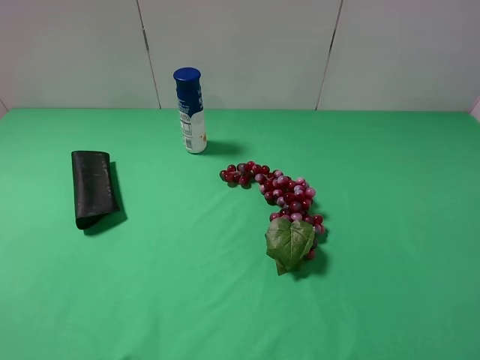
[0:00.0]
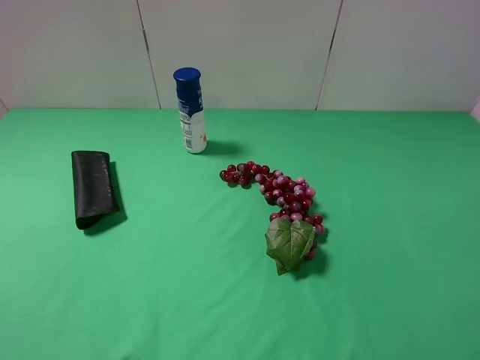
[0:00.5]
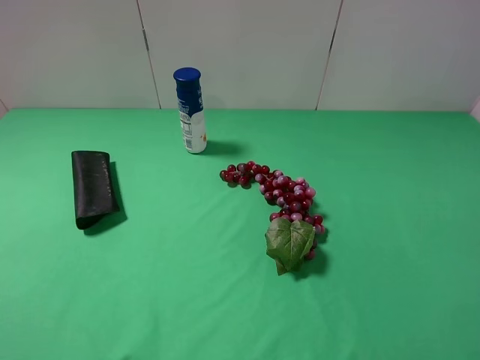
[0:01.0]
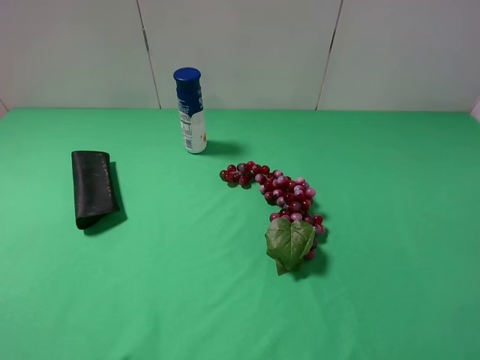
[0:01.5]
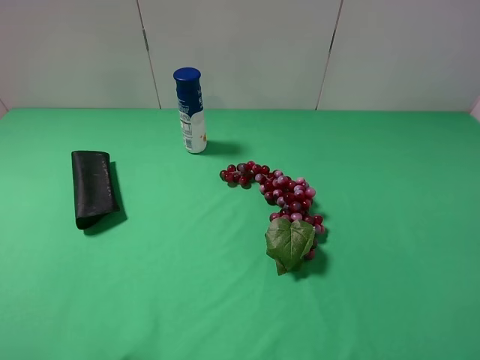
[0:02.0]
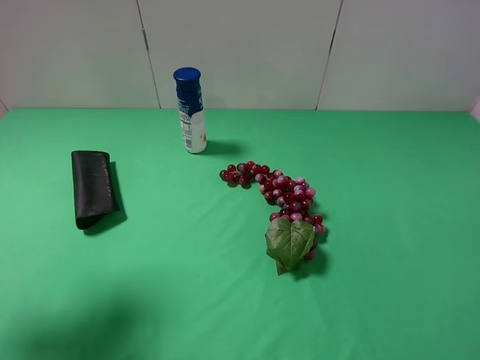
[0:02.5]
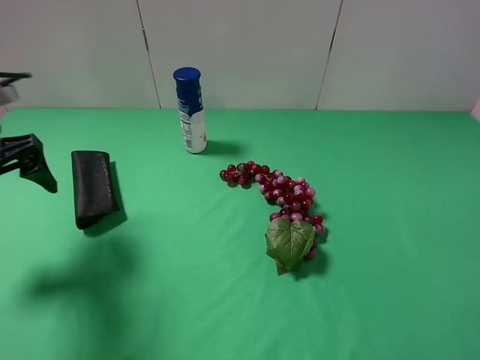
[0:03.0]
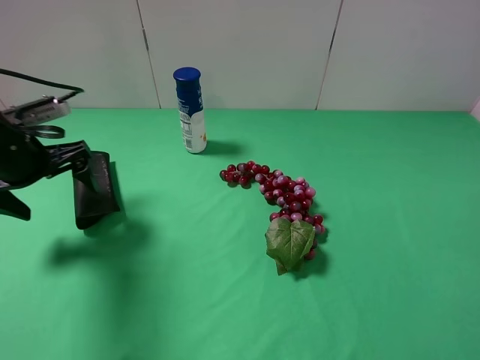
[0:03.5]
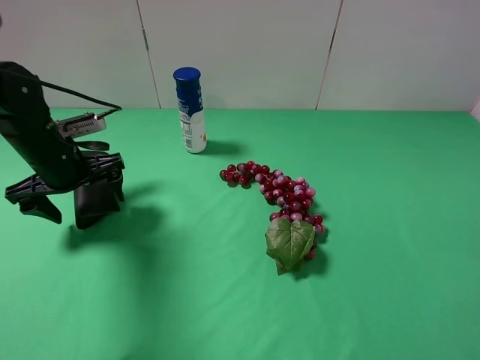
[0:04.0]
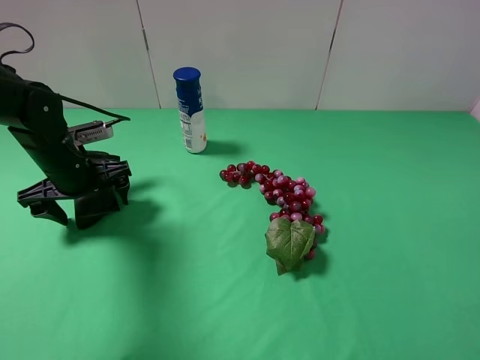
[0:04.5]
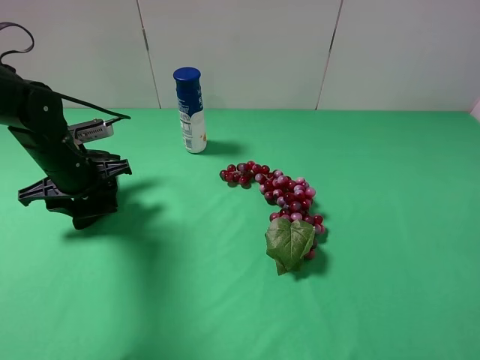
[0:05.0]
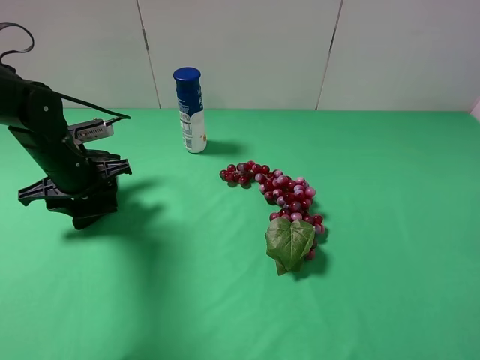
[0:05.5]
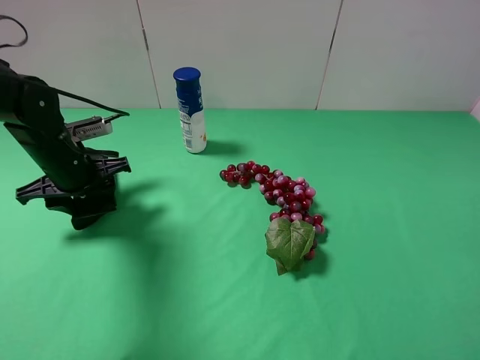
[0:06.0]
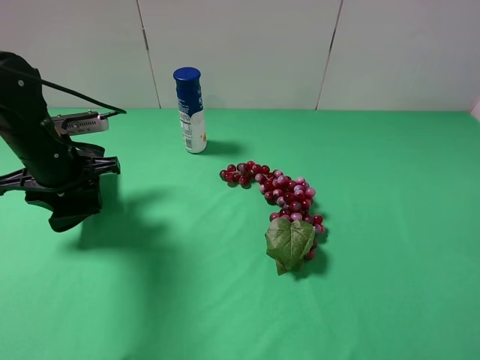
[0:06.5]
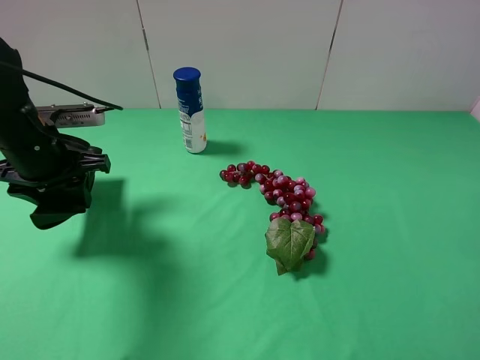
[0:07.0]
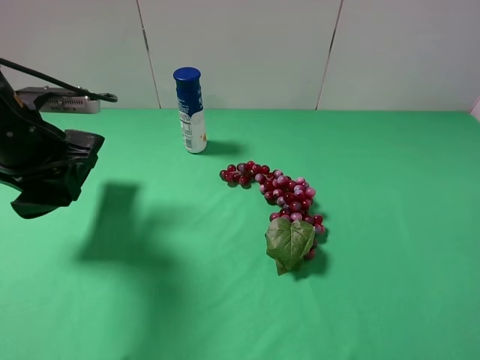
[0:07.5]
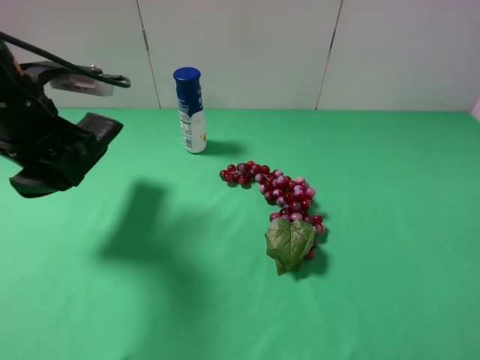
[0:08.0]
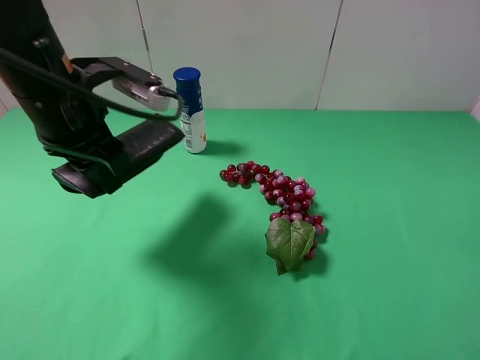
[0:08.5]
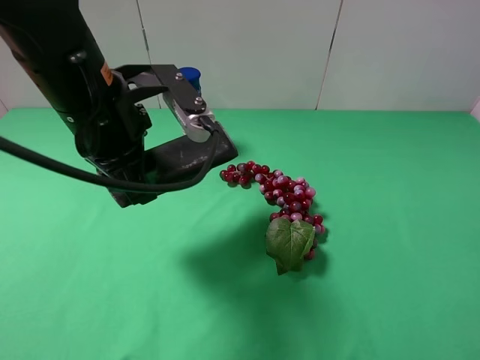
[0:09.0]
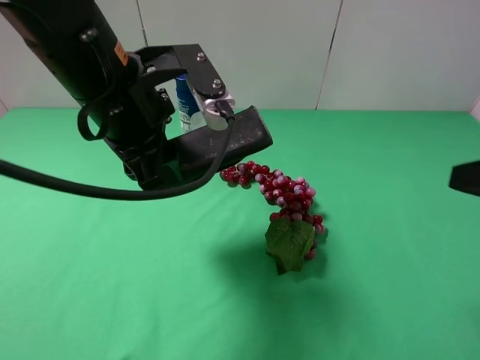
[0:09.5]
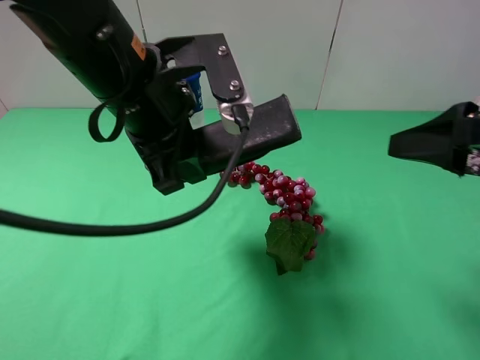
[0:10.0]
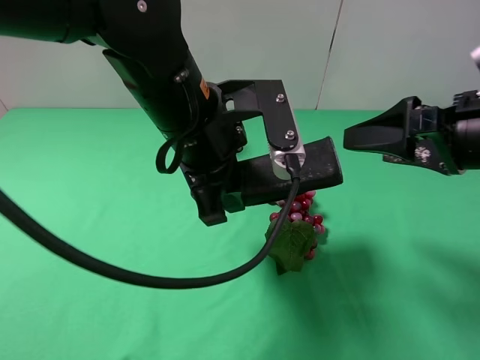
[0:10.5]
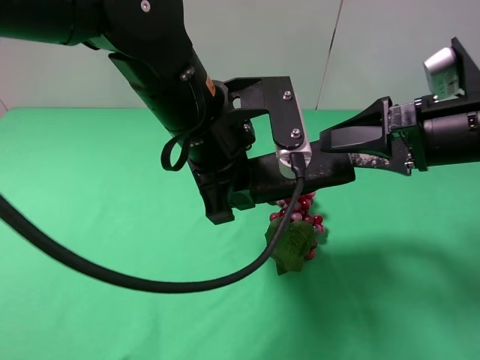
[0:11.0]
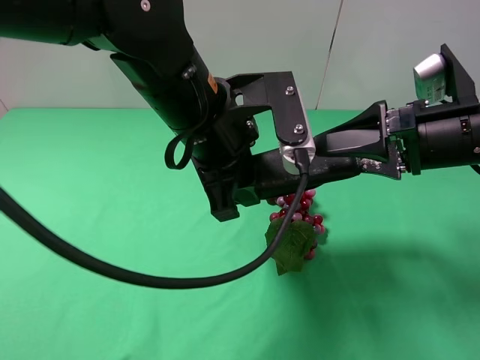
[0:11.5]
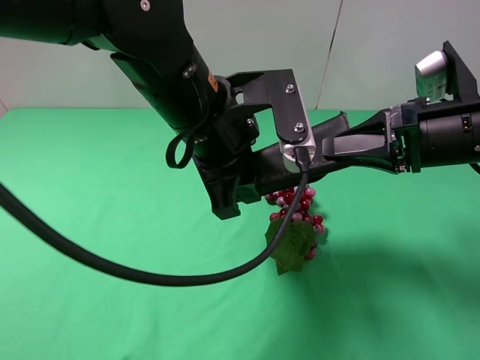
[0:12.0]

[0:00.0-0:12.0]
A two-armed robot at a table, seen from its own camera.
Task of the whole recording: use the left gripper to pick up the item and transfer it from the left gripper to the right gripper.
Step, 0:00.0 to 0:05.0: Use the left gripper to grab the eyeglass case on the left side of the table.
0:02.0 to 0:04.0: The left gripper travels forward and downward by about 30 cm.
0:04.0 to 0:06.0: The left gripper closes its fingers.
0:06.0 to 0:08.0: The left gripper travels upward by approximately 10 cm.
0:08.0 to 0:10.0: The left gripper goes roughly 15 cm to the right; the right gripper heads forward, covering approximately 15 cm.
0:10.0 to 0:12.0: The right gripper travels forward by roughly 5 cm, and closes its fingers. The left gripper is displaced to the right by approximately 5 cm.

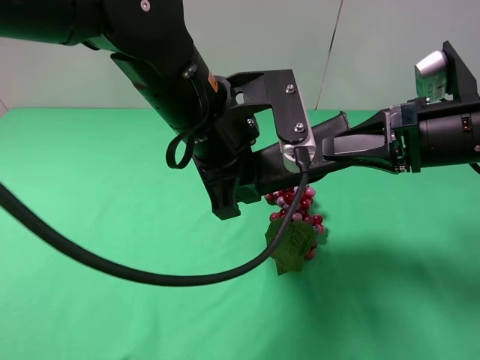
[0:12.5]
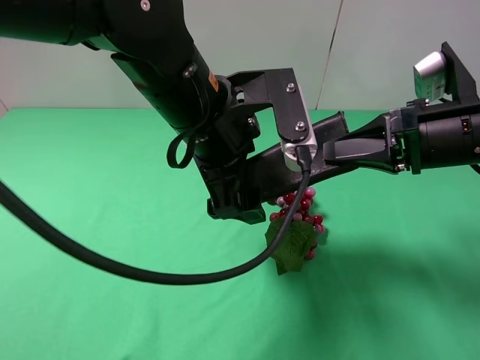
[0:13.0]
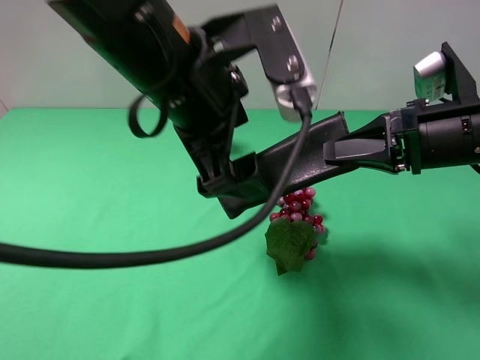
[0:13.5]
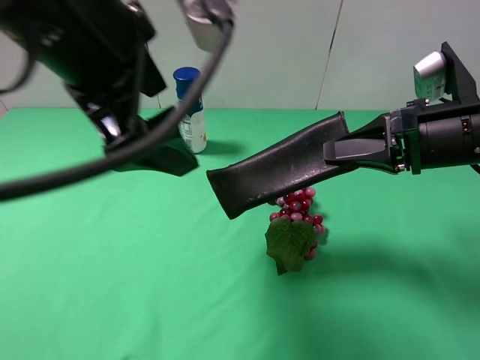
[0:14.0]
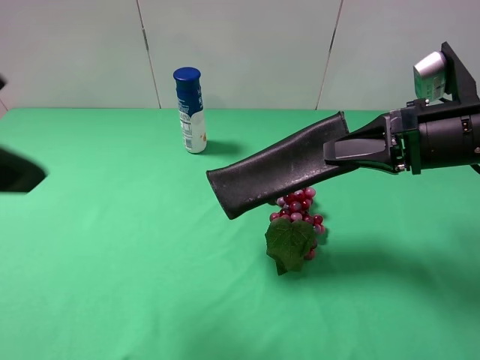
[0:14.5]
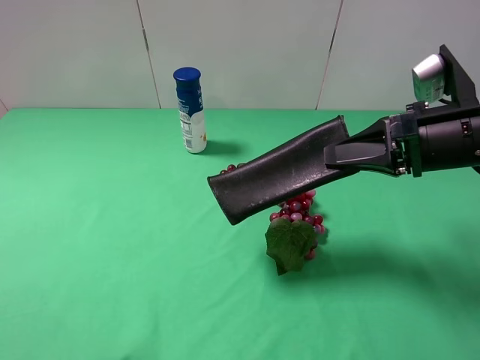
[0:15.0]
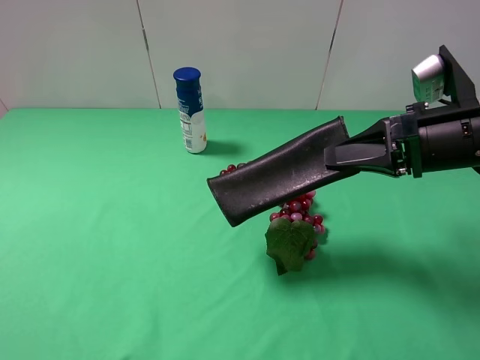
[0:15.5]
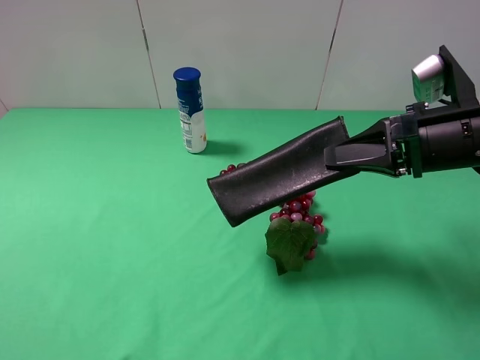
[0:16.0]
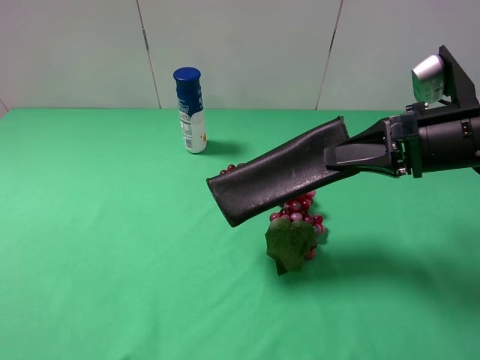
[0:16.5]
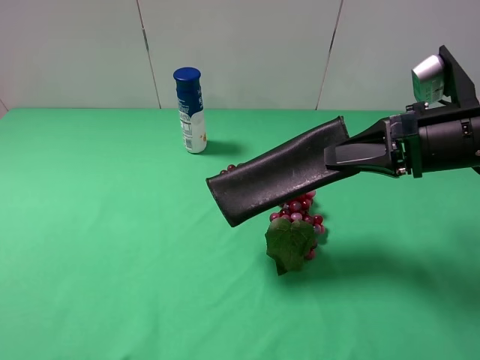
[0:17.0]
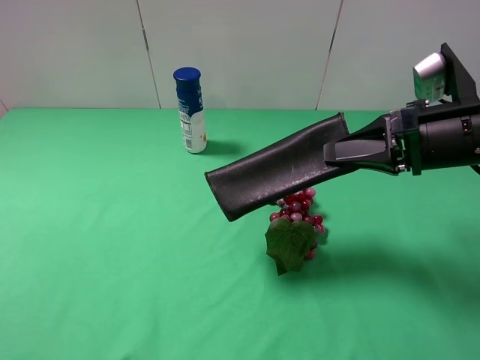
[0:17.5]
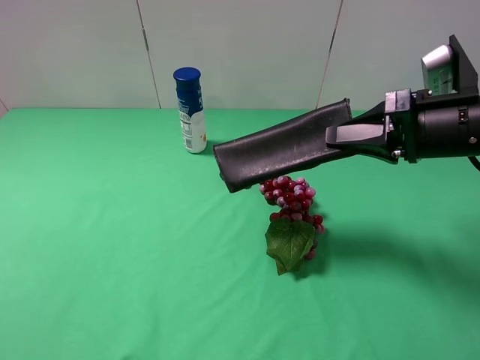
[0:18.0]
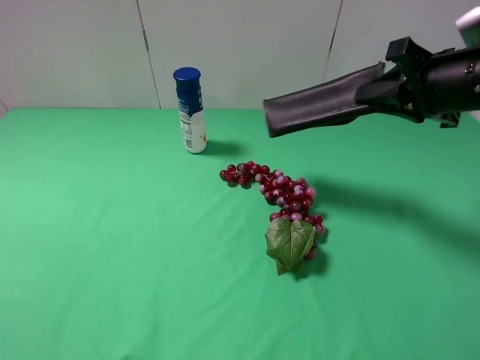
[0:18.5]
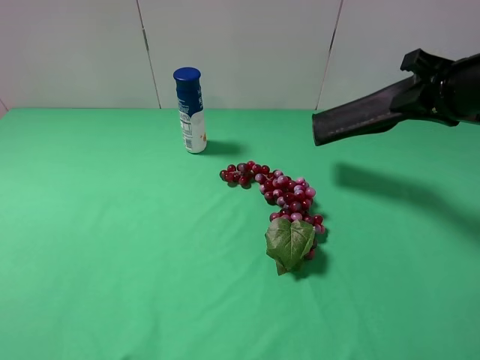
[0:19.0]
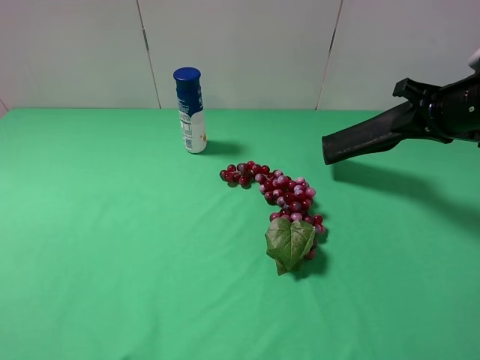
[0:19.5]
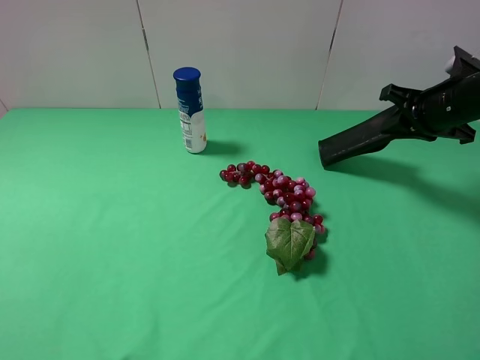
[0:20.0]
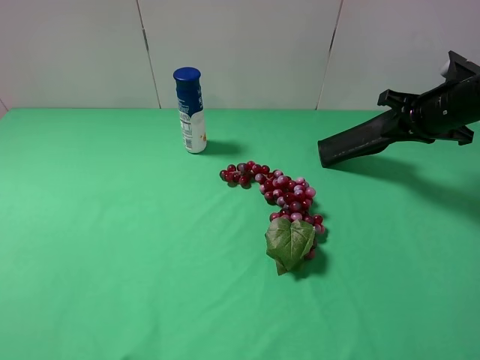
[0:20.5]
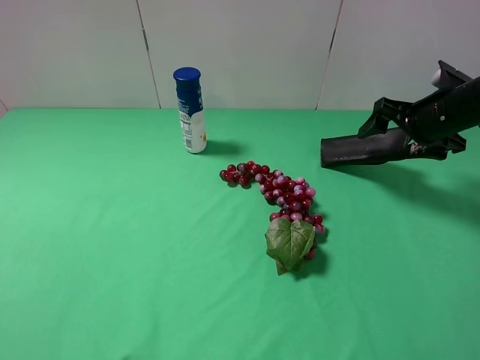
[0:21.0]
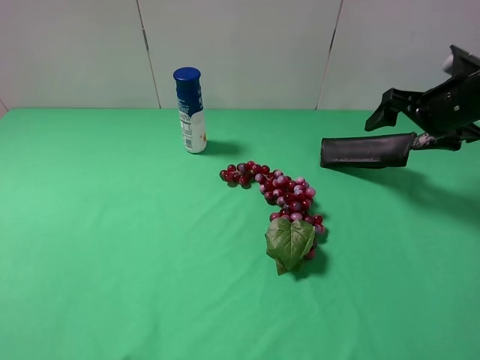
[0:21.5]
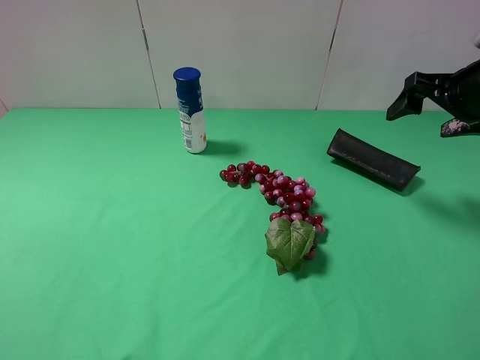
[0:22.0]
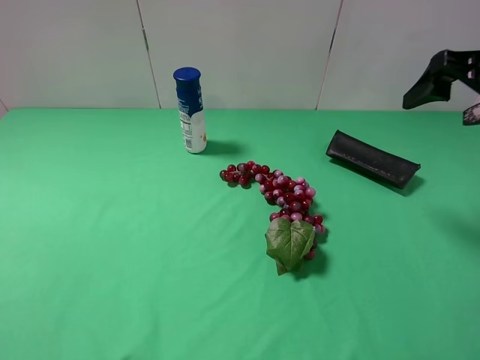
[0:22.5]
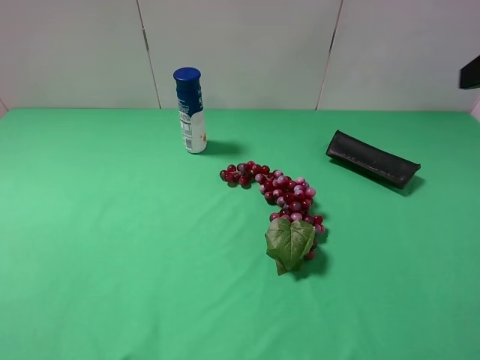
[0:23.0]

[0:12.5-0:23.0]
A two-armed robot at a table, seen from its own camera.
Task of the whole recording: use the left gripper to pick up the item and transfer it from the left gripper to the right gripper.
Step, 0:13.5 to 0:21.5: The right gripper places eyeglass case on the right side of the table.
0:12.5 to 0:14.5: The left gripper is displaced to the left, upward and backward by approximately 25 cm, and opens its fingers.
0:14.5 to 0:16.5: The left gripper goes some 20 cm downward, backward and to the left.
0:16.5 to 0:19.0: The right gripper goes about 10 cm forward and to the right.
0:19.0 to 0:21.0: The right gripper is displaced downward and forward by roughly 10 cm, and opens up.
0:21.0 to 0:23.0: The right gripper moves upward and backward, about 25 cm.
